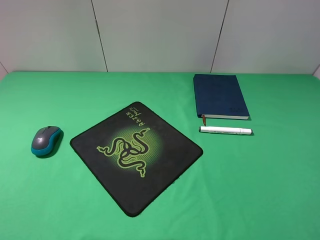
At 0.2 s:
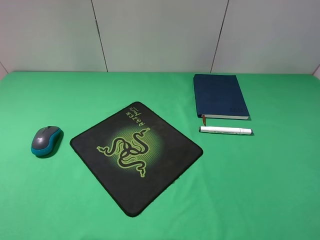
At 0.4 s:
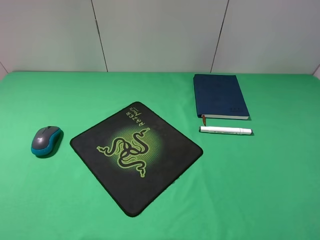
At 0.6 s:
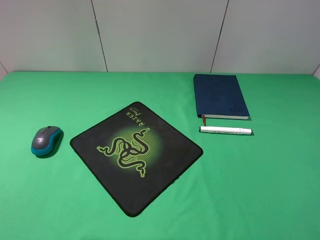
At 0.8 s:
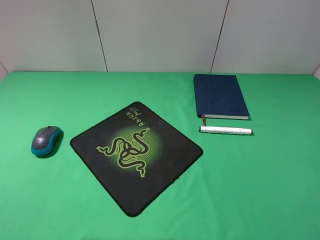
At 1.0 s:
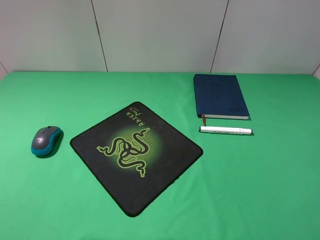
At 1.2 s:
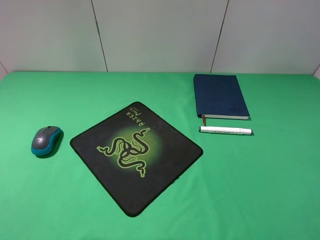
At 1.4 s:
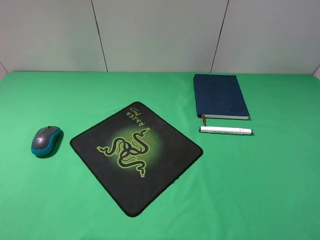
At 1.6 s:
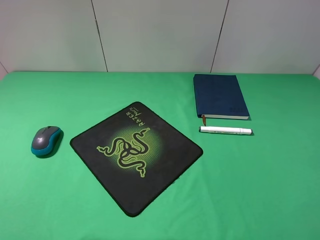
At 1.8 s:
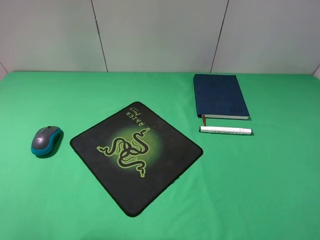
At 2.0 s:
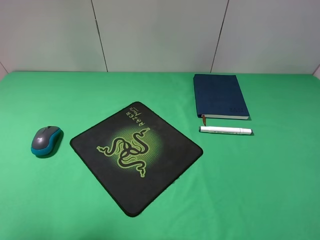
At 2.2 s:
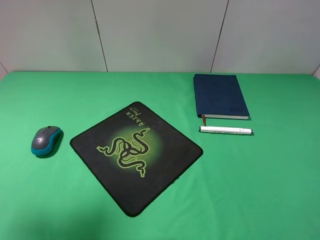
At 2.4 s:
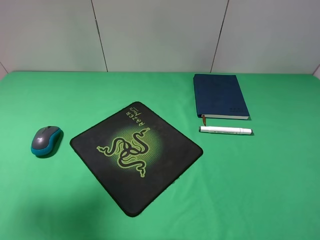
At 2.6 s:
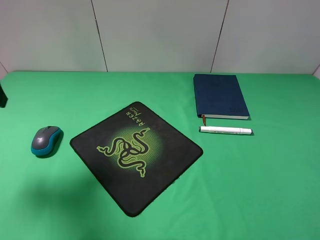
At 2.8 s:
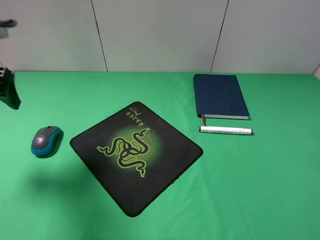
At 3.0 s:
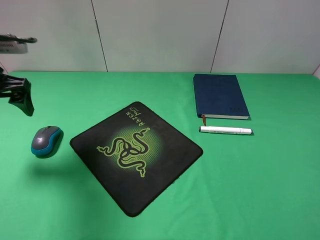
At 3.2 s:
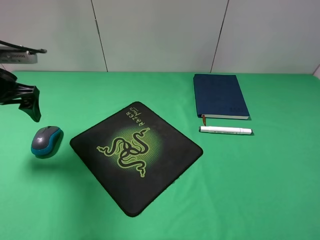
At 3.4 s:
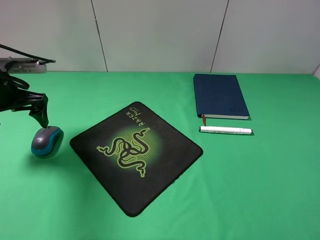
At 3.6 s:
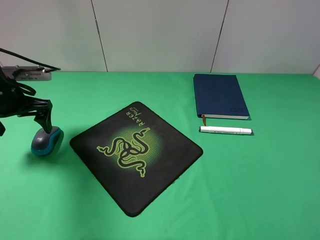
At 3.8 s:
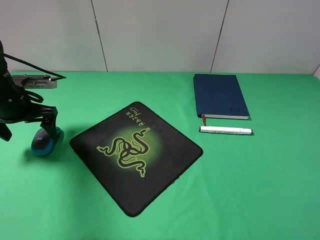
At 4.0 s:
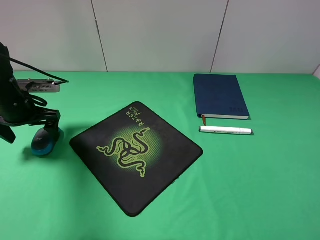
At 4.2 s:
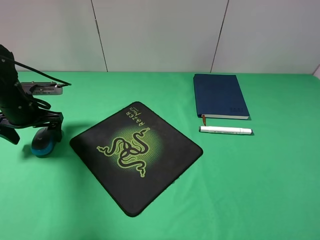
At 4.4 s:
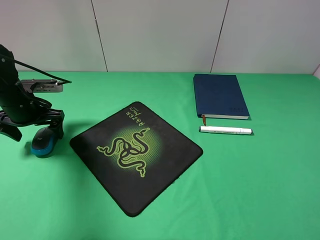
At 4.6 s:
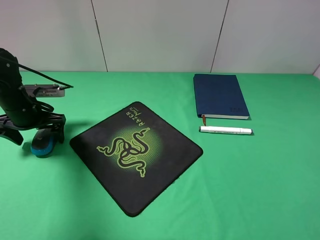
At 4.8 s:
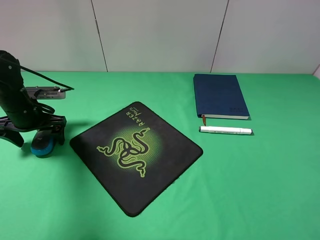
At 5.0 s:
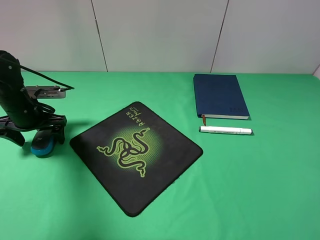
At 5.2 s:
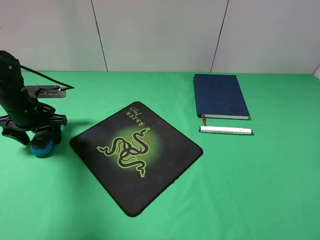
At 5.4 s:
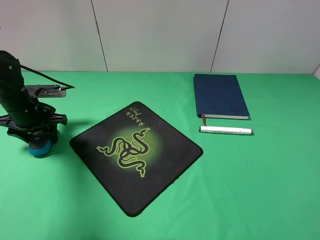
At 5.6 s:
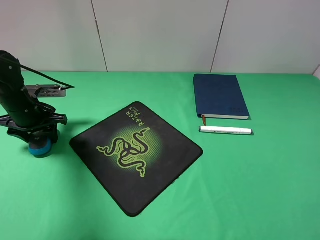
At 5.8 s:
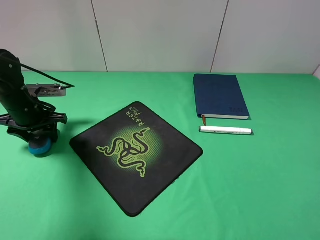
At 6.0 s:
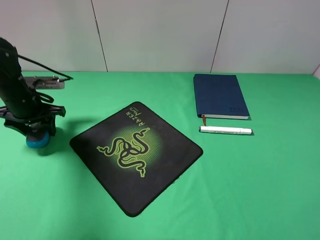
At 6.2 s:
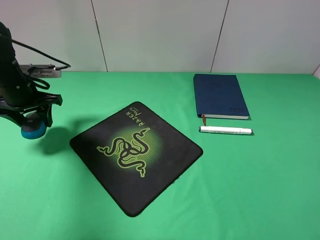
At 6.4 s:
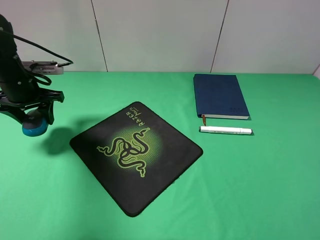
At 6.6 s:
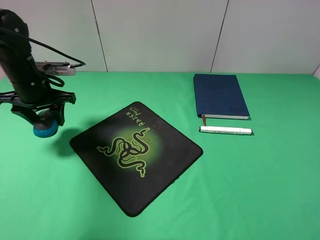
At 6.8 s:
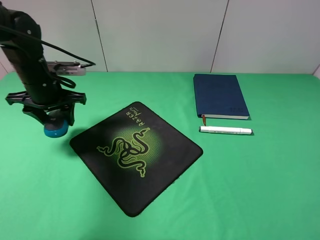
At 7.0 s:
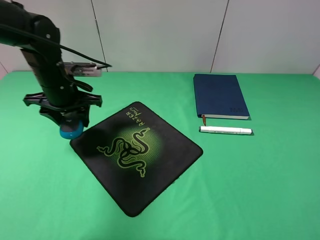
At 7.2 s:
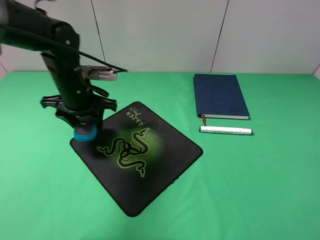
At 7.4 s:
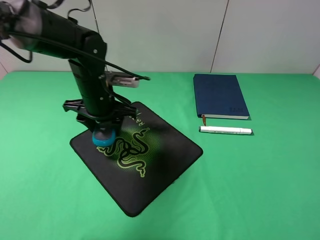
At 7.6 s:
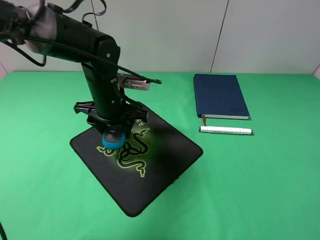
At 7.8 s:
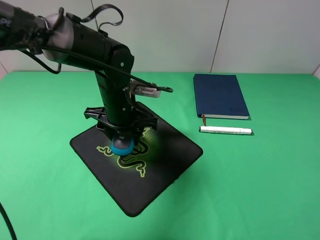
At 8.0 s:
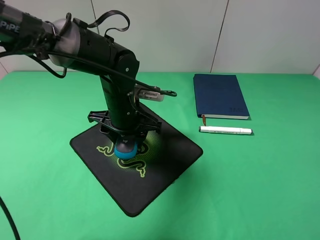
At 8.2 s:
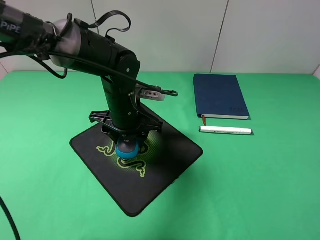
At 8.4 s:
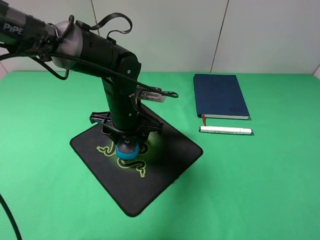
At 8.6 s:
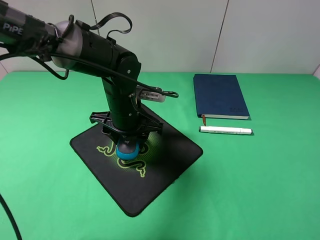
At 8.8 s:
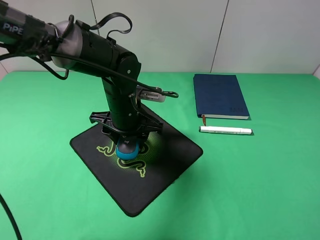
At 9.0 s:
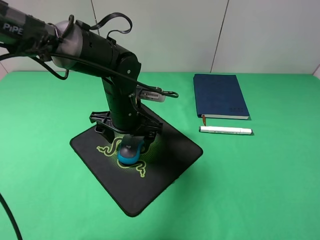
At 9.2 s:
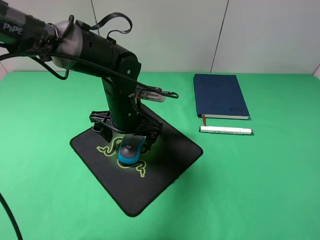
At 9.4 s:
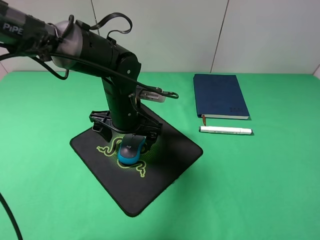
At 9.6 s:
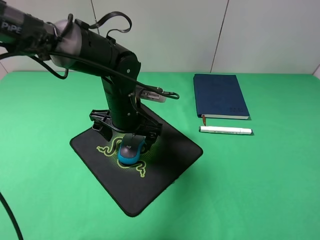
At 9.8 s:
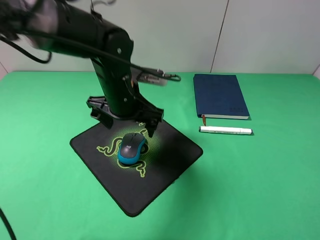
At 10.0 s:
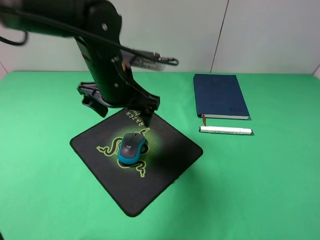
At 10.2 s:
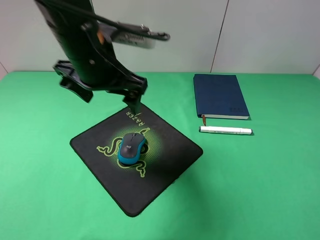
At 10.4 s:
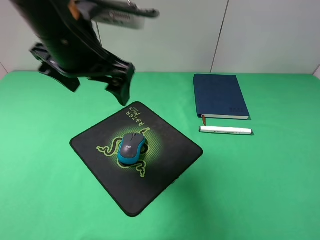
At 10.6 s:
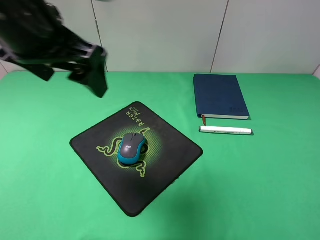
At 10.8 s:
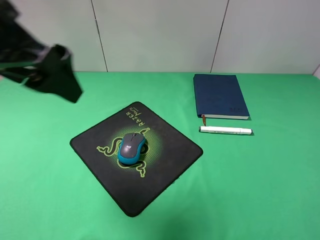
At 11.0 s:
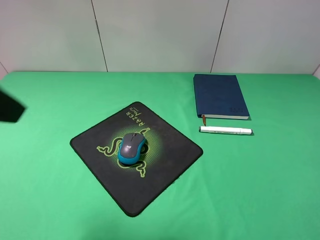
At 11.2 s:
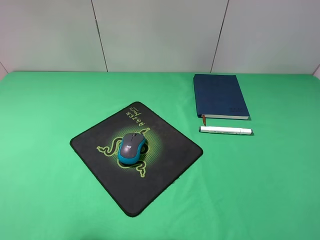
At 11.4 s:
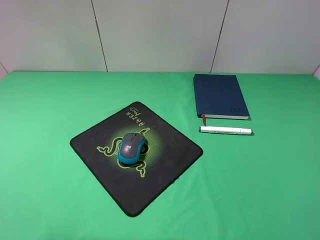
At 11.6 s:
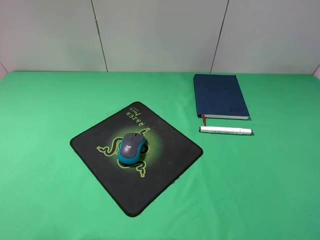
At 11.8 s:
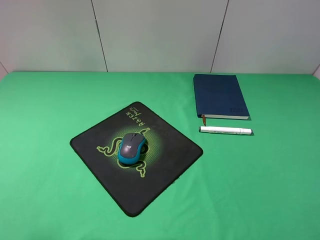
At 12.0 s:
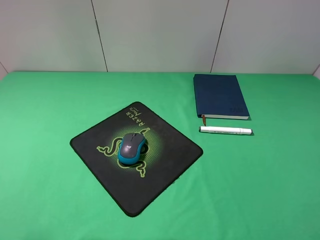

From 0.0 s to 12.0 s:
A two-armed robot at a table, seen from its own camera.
Step, from 0.0 s to 5.6 s: Grasp the mouse with the left gripper.
Step, from 5.8 s to 9.2 s: Place the mouse on the mouse pad with the left gripper.
From 1.6 s to 3.0 s: The left gripper moves forward and downward, approximately 25 cm.
From 3.0 s to 4.4 s: The left gripper is displaced downward by roughly 10 cm.
From 4.4 s to 6.0 s: The left gripper closes up.
From 6.0 s to 7.6 s: The left gripper goes about 20 cm to the right.
From 7.6 s to 9.0 s: The left gripper opens.
From 9.0 s to 10.4 s: The left gripper shifts roughly 20 cm upward.
From 10.4 s to 12.0 s: The left gripper shifts about 30 cm backward and to the left.

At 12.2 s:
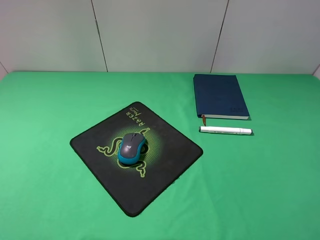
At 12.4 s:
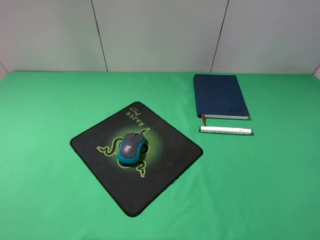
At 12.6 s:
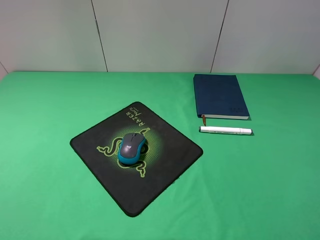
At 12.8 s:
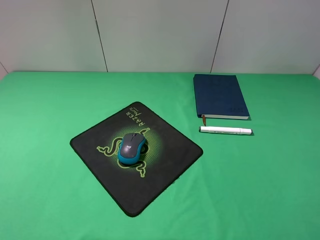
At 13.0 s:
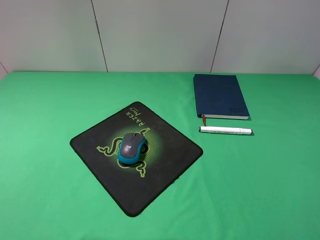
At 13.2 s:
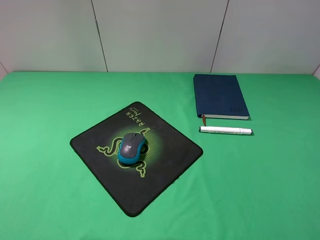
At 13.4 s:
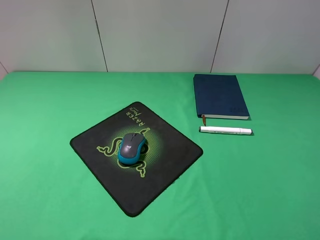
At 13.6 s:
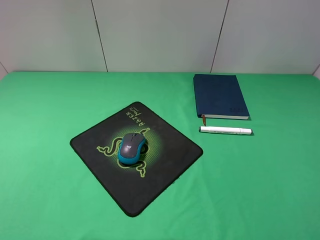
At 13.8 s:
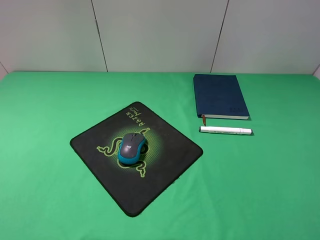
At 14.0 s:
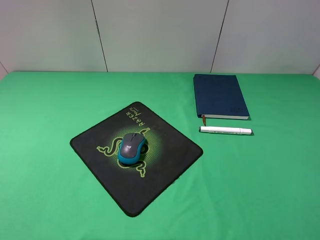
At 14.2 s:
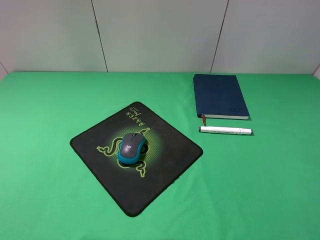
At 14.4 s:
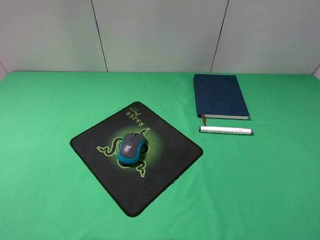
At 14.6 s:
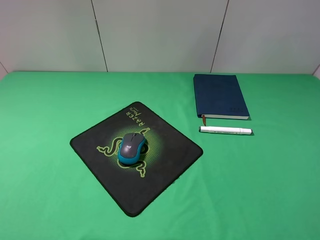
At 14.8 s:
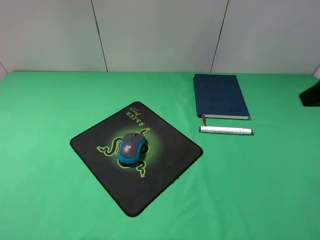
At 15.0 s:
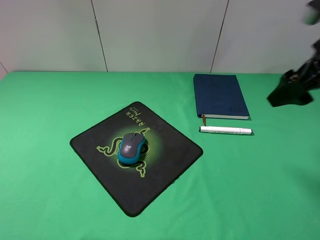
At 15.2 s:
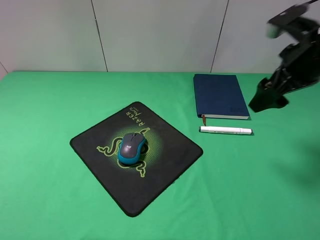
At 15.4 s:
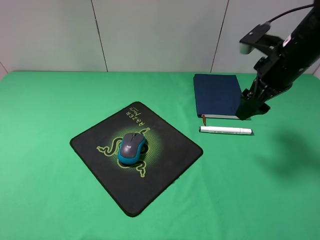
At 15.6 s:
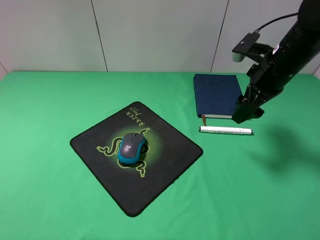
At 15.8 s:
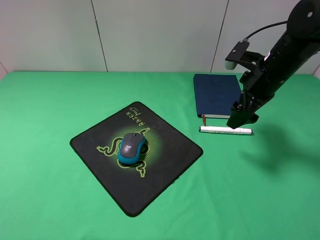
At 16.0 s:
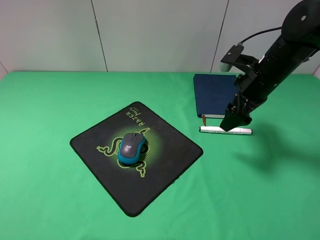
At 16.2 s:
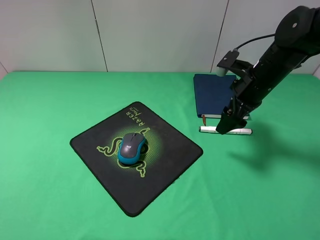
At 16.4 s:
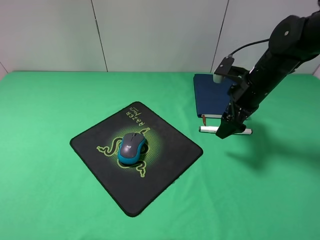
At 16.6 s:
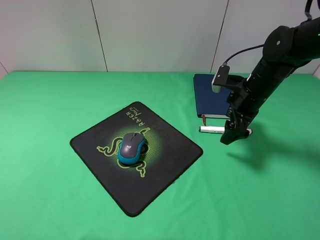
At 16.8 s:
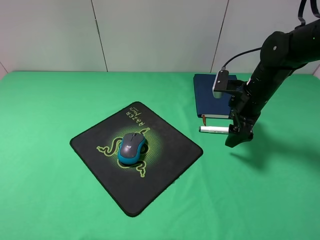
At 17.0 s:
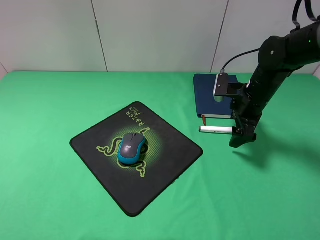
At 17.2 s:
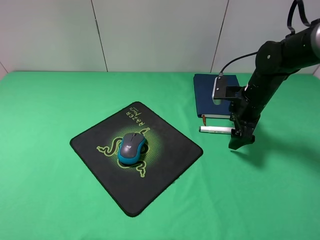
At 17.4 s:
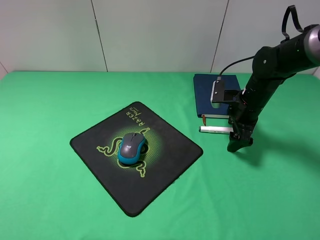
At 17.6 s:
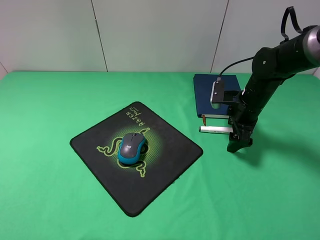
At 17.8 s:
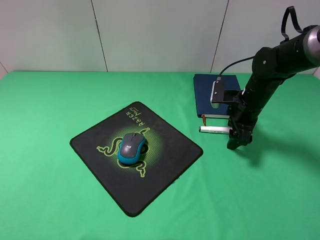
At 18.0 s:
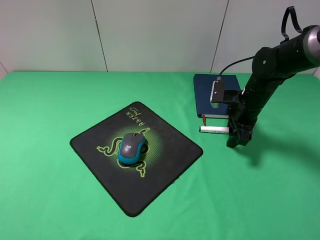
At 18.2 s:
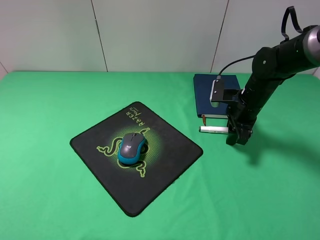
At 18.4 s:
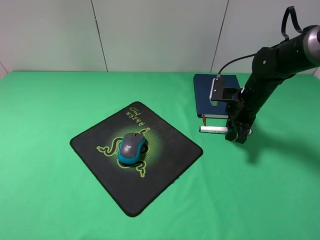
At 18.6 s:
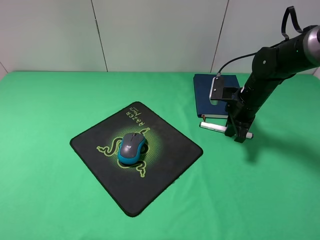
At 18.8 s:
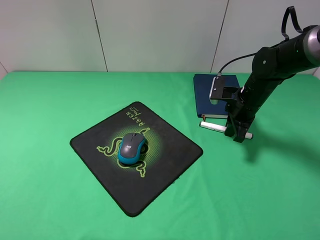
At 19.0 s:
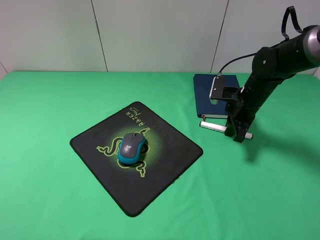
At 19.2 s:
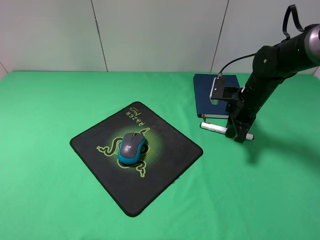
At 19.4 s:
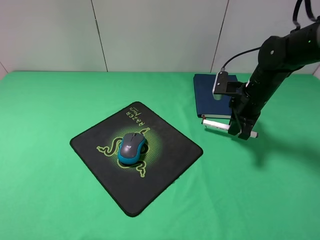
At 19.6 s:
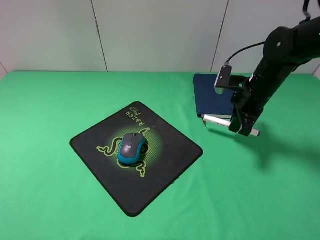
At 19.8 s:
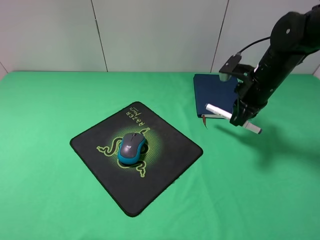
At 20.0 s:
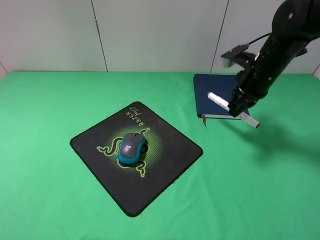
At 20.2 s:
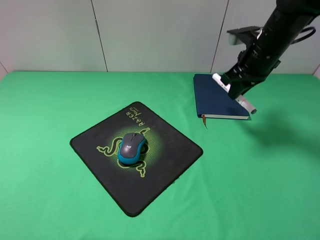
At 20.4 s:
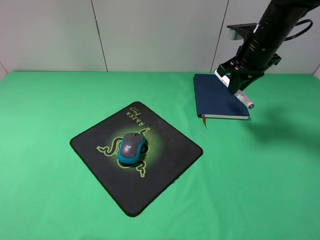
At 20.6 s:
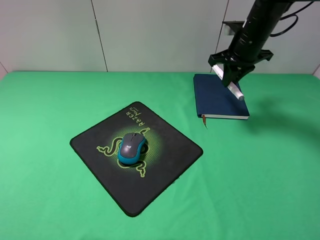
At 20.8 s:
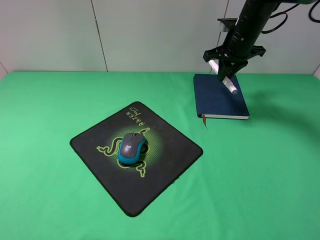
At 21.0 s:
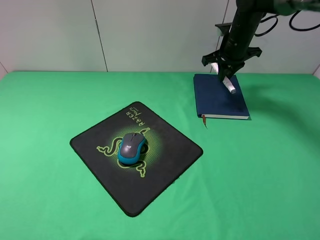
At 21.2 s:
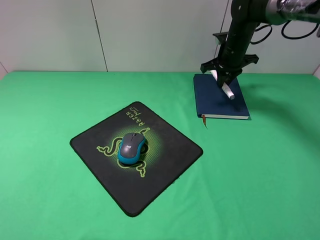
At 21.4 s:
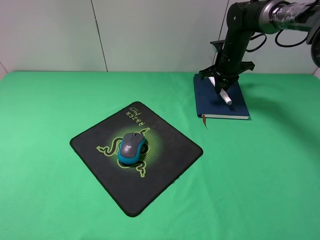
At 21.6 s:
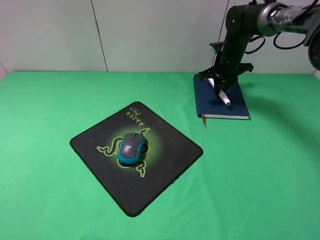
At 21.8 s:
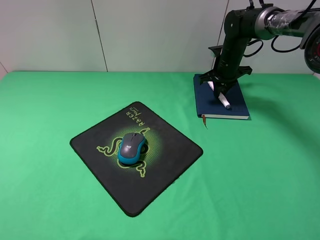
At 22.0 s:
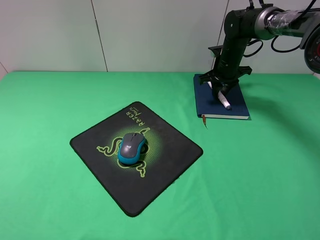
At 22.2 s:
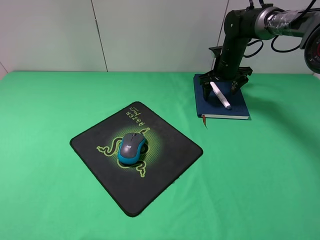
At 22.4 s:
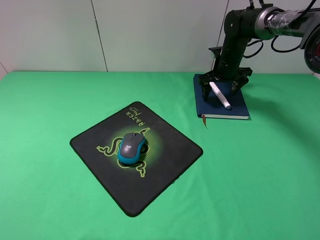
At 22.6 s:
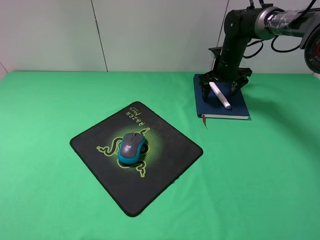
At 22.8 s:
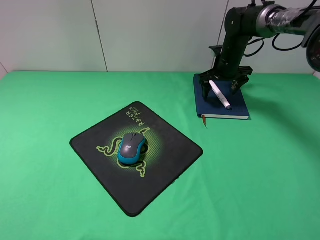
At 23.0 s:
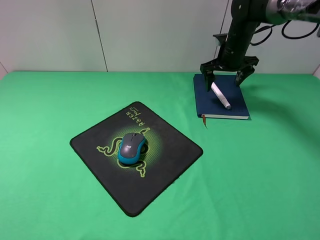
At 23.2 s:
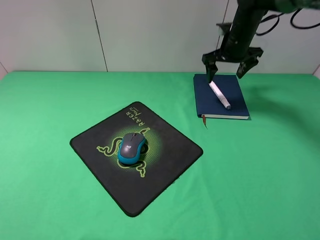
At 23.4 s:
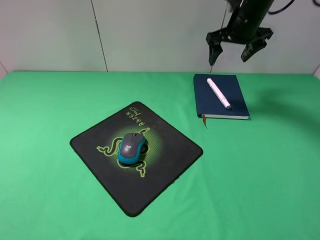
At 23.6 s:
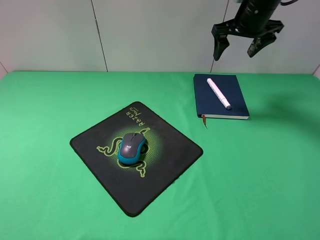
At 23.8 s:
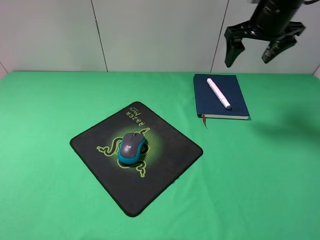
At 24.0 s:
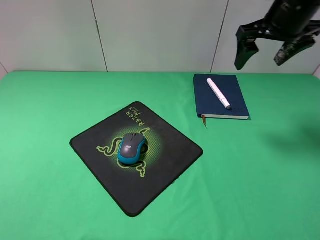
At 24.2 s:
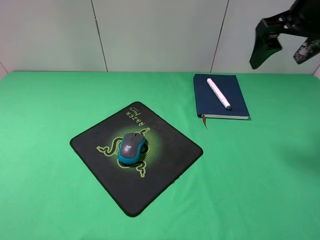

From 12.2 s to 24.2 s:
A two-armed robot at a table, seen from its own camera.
Step, from 12.2 s to 18.8 s: Grasp the marker with the right gripper.
Step, from 19.0 s to 22.4 s: Place the marker on the notebook with the right gripper.
From 12.2 s to 13.8 s: The two grippers keep their place.
From 13.8 s to 15.2 s: The right gripper travels forward by some 25 cm.
From 15.2 s to 16.6 s: The right gripper goes approximately 15 cm downward and forward.
From 16.6 s to 18.2 s: The right gripper closes.
From 18.2 s to 19.8 s: The right gripper shifts roughly 5 cm upward, and closes.
From 19.8 s to 21.2 s: The right gripper goes approximately 15 cm forward.
From 21.2 s to 22.6 s: The right gripper opens.
From 22.6 s to 24.2 s: The right gripper is displaced upward and backward by some 30 cm.
